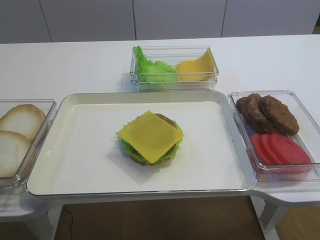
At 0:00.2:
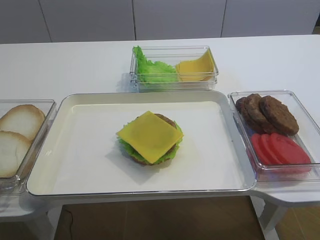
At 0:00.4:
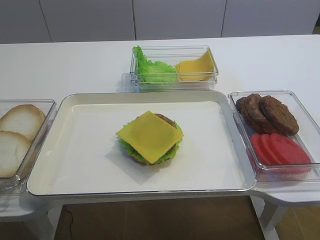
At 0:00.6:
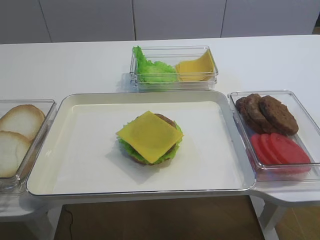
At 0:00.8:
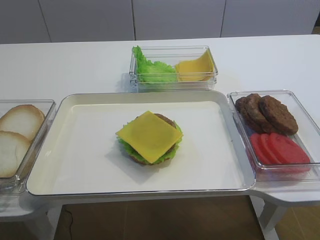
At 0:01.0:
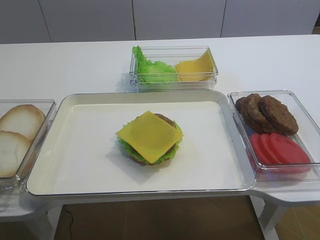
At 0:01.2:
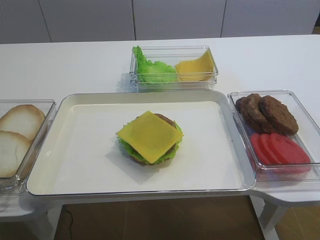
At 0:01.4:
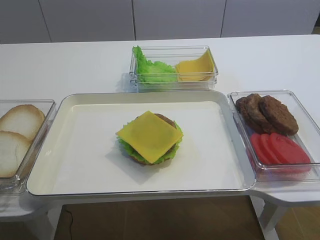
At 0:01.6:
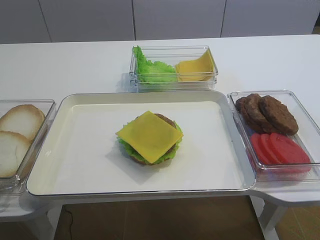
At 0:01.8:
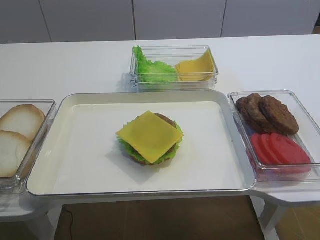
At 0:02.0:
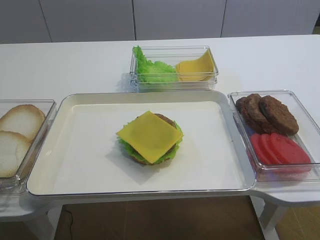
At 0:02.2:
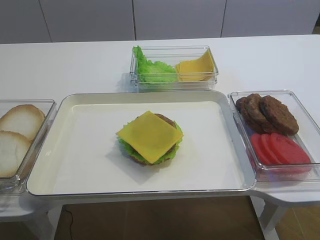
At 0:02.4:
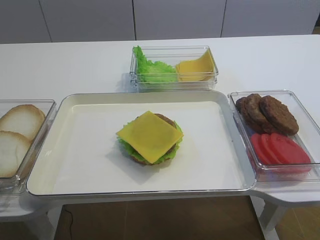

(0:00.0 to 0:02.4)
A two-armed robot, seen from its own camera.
0:00.0 - 0:02.4: Both grippers stay about where they are.
